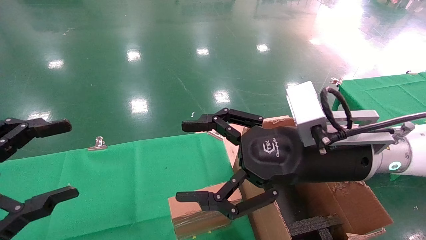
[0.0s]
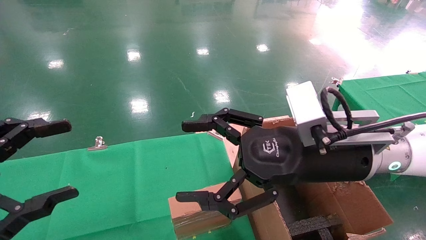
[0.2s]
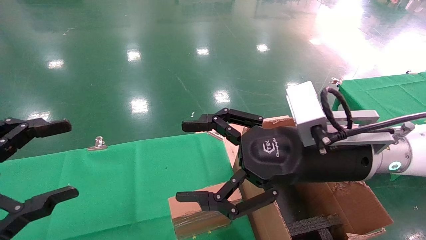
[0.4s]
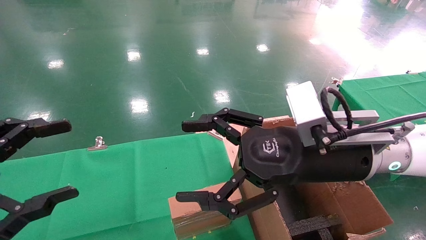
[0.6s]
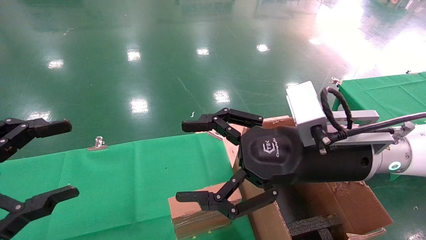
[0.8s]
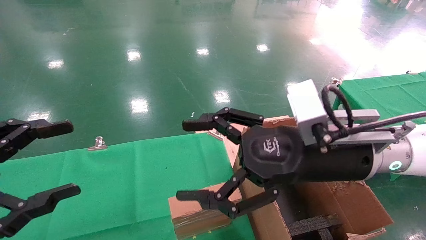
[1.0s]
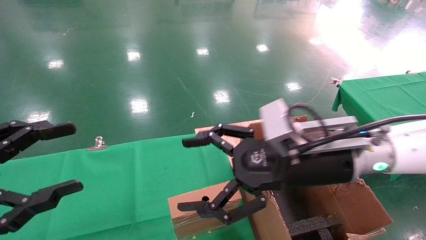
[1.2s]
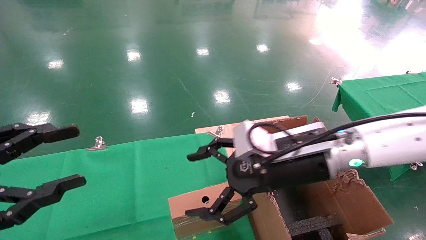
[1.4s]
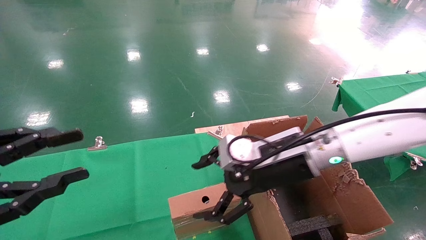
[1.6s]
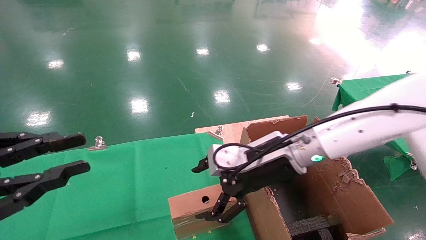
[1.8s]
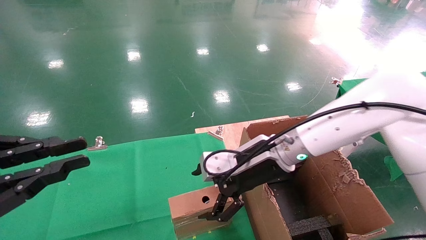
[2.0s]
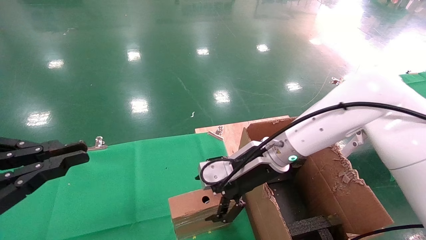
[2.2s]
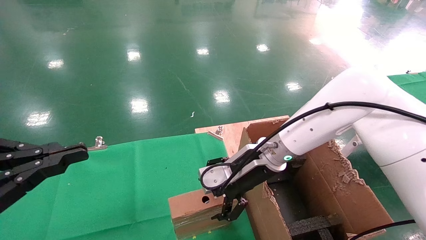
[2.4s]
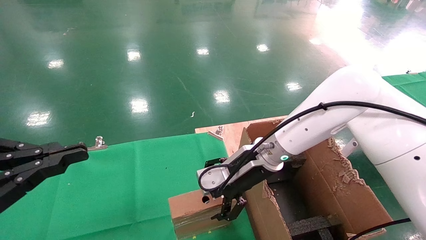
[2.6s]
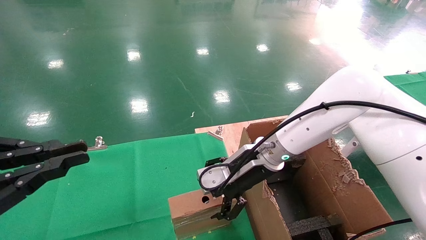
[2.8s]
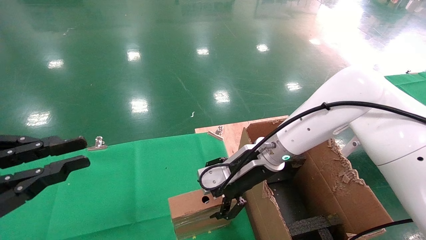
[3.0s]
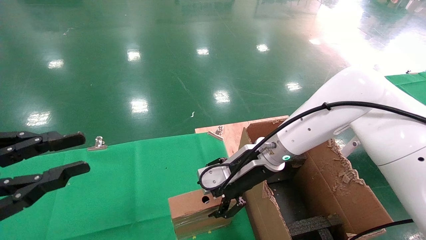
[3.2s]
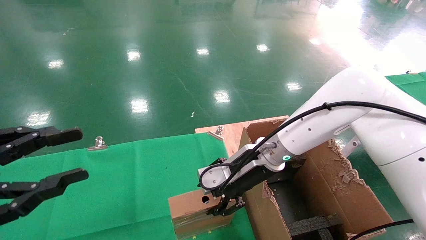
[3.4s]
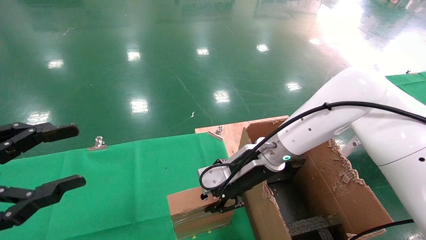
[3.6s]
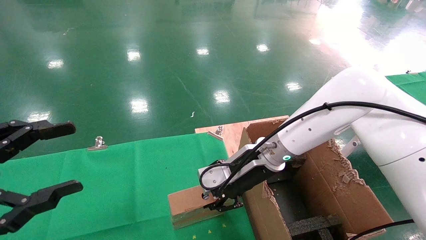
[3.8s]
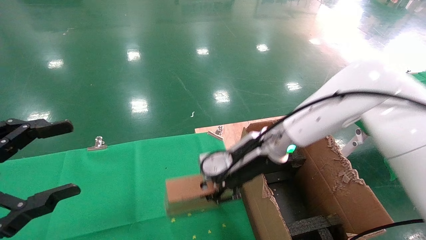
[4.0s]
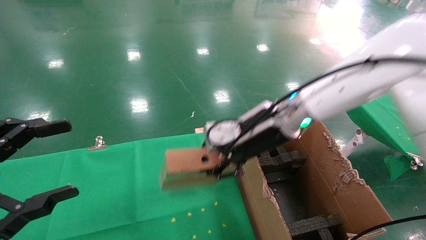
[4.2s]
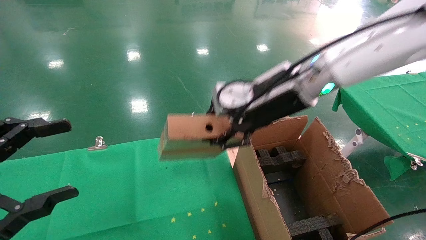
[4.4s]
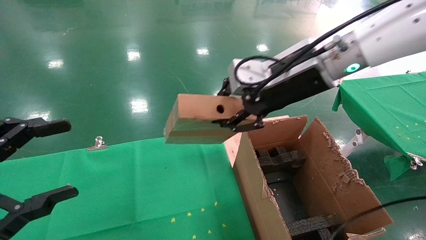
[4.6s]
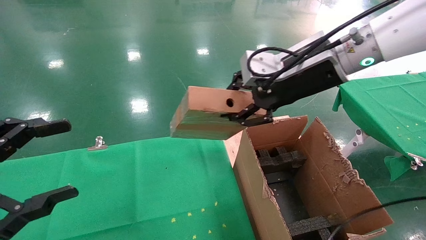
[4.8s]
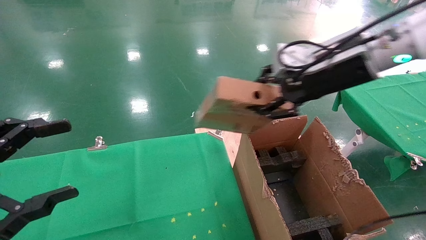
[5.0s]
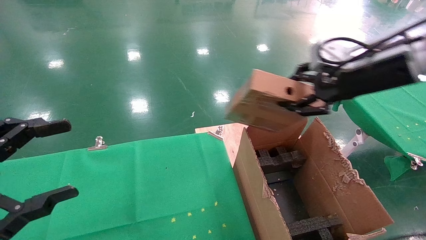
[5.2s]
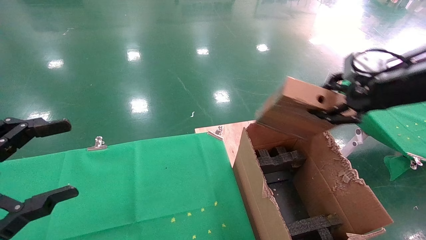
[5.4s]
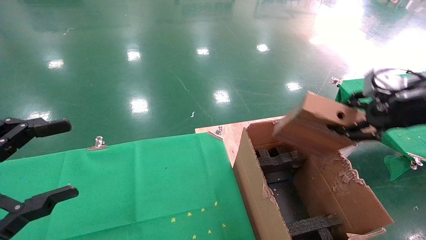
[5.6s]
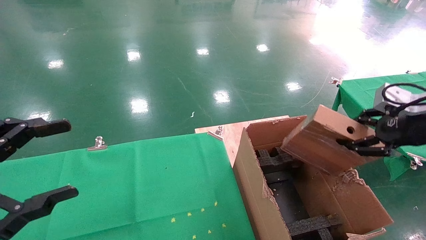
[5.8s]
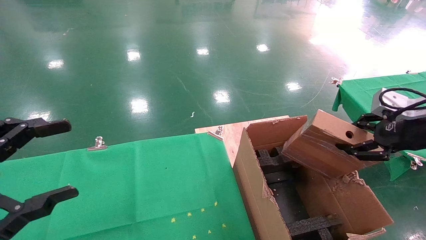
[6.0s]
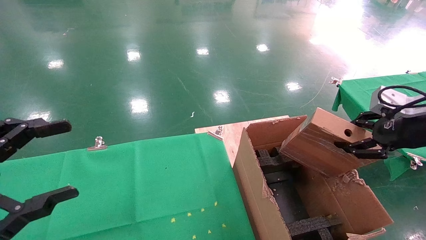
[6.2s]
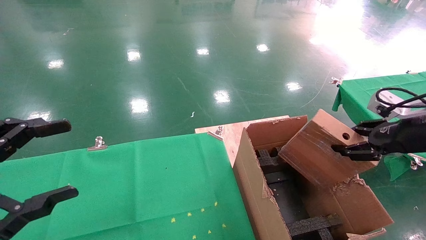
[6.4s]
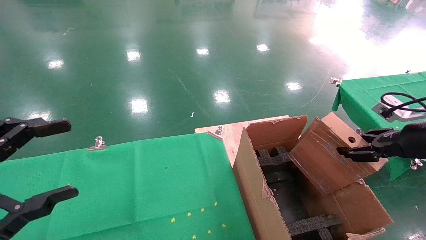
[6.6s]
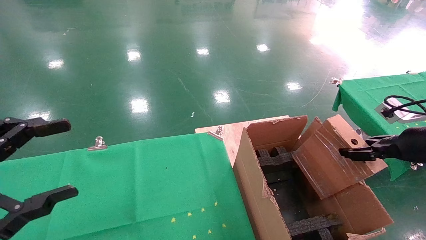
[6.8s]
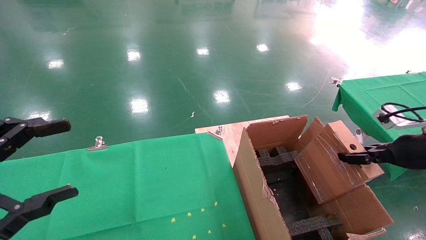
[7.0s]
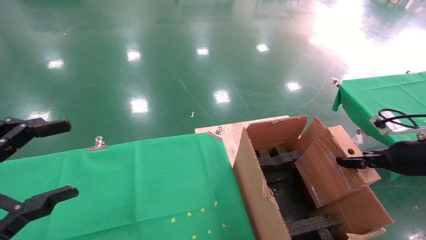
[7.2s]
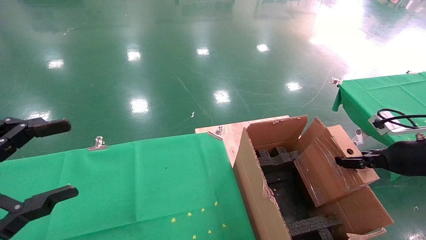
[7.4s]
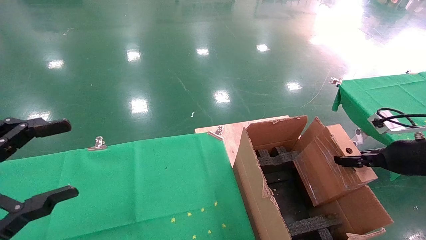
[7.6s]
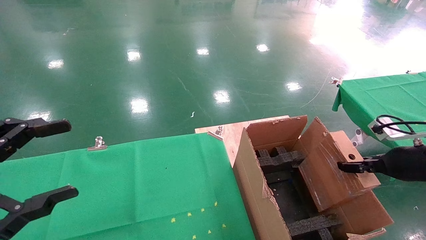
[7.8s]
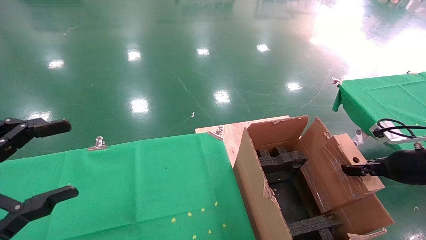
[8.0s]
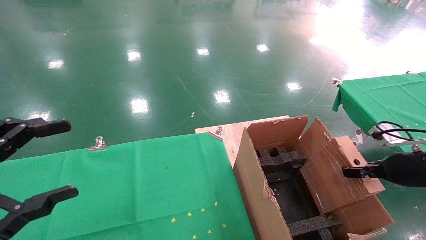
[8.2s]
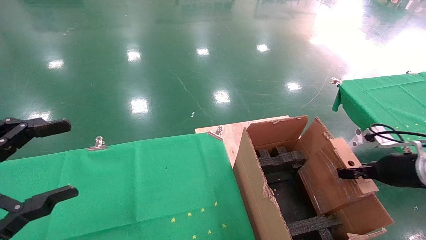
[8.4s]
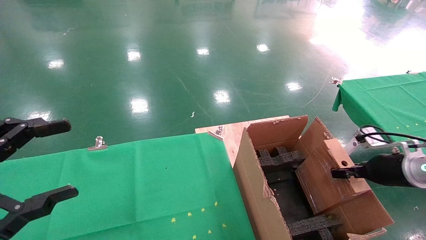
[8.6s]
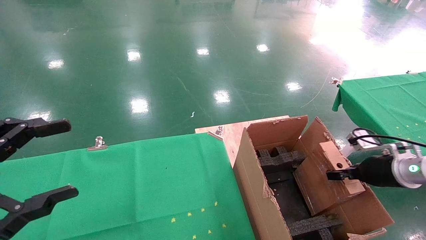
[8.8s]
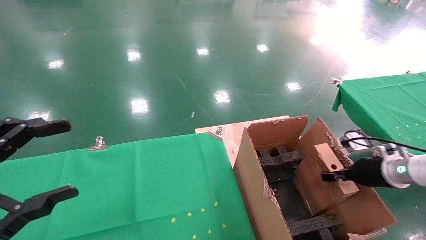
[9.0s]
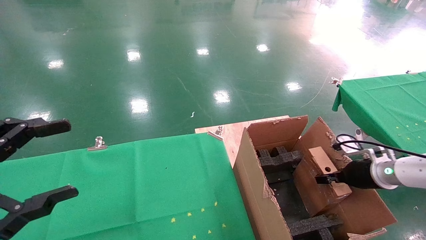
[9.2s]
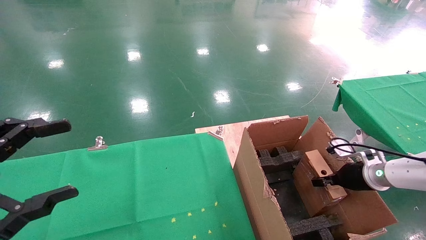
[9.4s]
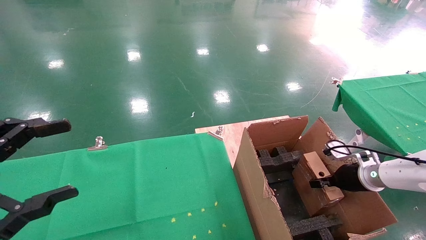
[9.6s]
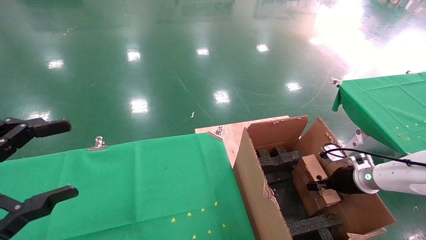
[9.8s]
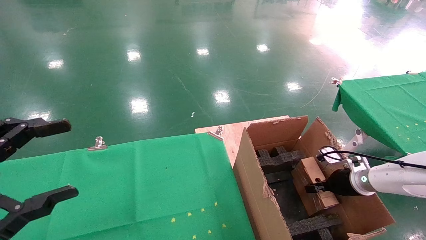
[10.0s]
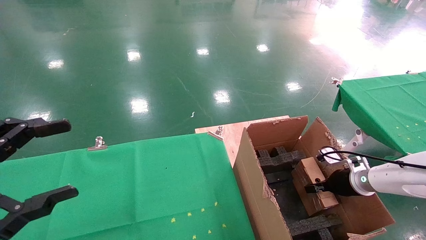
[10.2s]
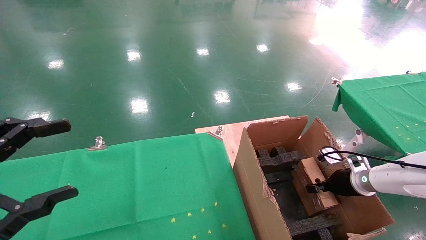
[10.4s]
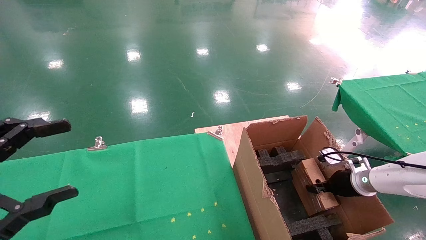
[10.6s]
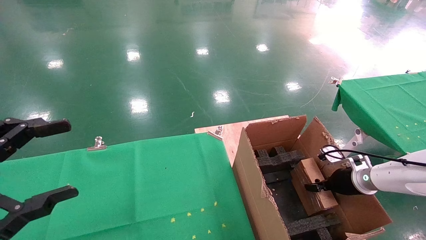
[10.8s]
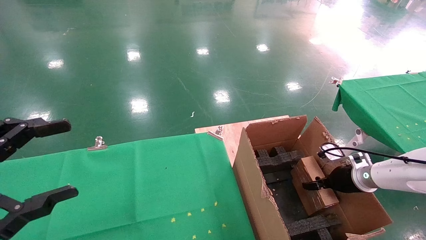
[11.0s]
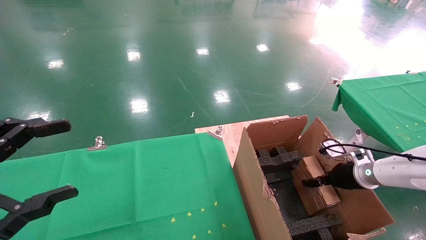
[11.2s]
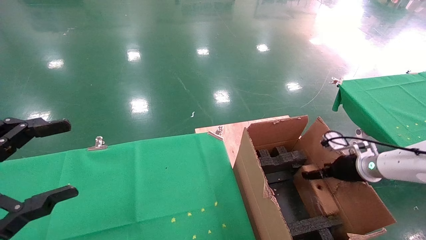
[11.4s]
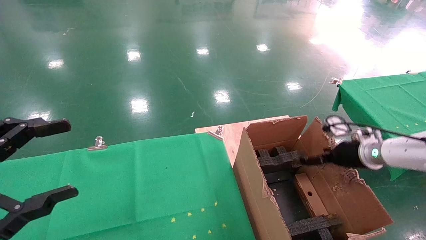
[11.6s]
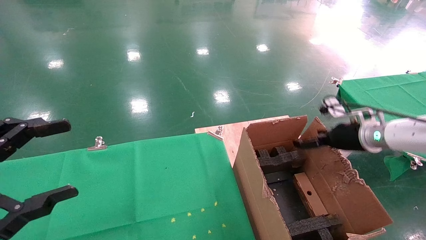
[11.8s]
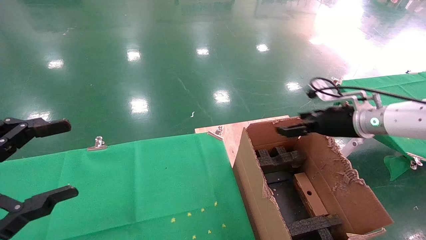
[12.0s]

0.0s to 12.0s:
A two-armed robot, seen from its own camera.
Task of the whole recording: using a robotic arm to pick up a cardboard box and palace it the carton.
Step, 1.0s to 3.6s: Pick up the mouse and the power cord paper box.
Step, 3.8s to 11.8s: Place the mouse and the power cord paper box into the container.
0.0s to 1.6s: The left gripper closes. Meanwhile the right gripper goes some 5 cm forward.
1.6s to 3.0s: The right gripper moves forward, some 5 cm; the left gripper closes up.
3.0s to 4.4s: The left gripper opens its fingers. The right gripper shifts roughly 15 cm upward, and closes its fingers.
4.4s to 6.0s: The right gripper travels to the right by approximately 25 cm.
6.0s to 7.6s: The right gripper moves downward, some 10 cm.
7.6s to 9.0s: The right gripper goes some 10 cm downward and forward.
9.0s to 10.4s: The right gripper travels downward by roughly 5 cm.
10.4s to 12.0s: The right gripper travels upward and to the left by some 20 cm, and opens.

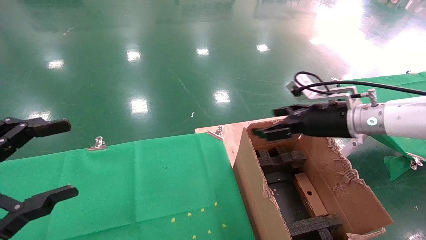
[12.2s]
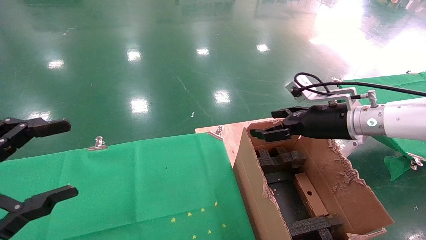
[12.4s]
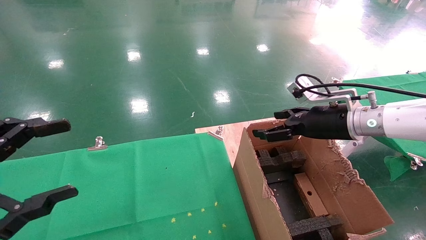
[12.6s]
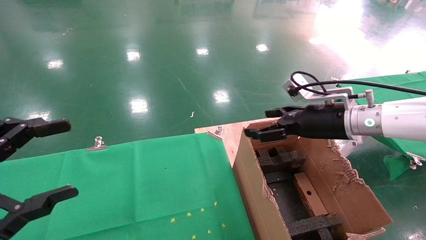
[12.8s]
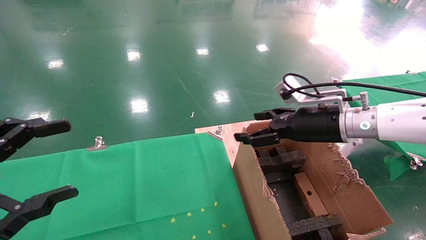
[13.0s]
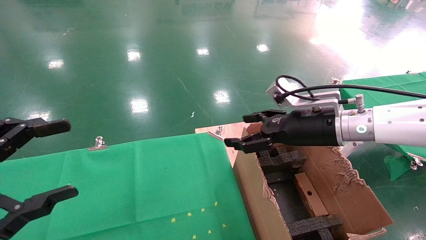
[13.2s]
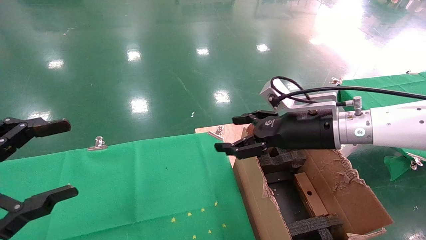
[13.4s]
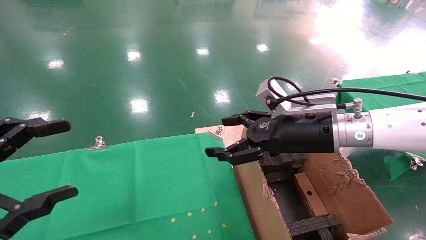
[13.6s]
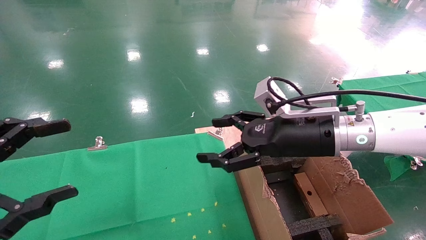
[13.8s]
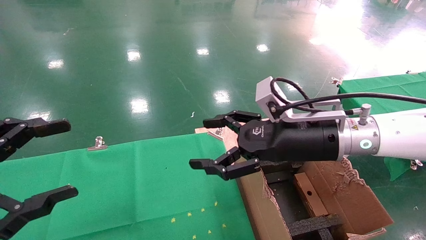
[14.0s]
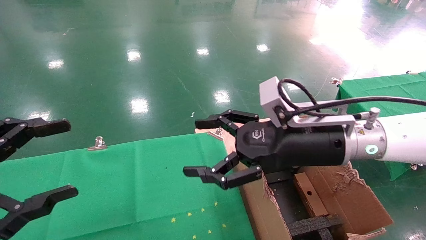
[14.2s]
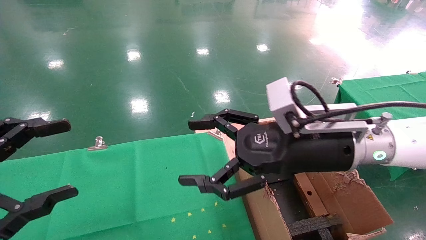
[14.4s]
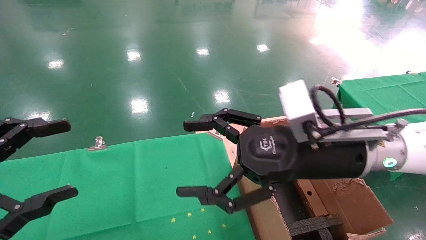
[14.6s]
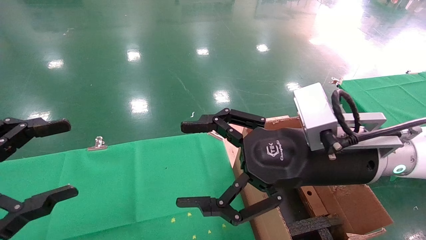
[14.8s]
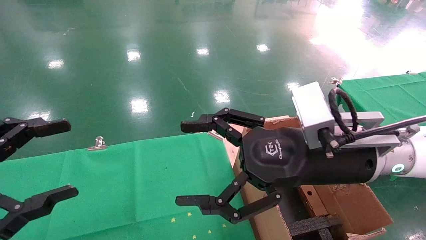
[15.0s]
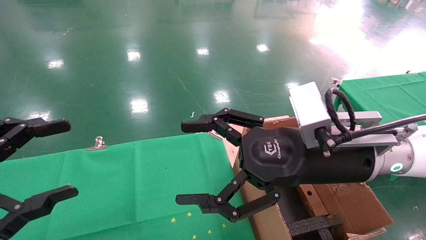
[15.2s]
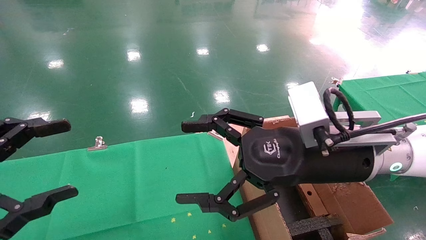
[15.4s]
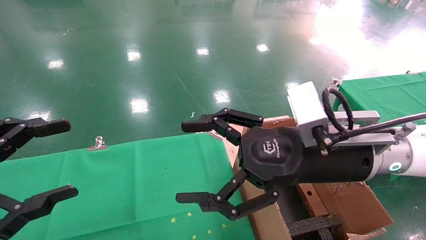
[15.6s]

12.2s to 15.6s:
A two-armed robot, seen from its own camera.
Task of the whole recording: using a robotic arm to pick up a cardboard box and palace it the carton.
12.2s to 13.8s: The right gripper shifts approximately 10 cm to the left and backward.
13.8s to 15.6s: The right gripper goes some 5 cm backward.
